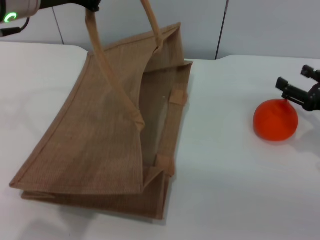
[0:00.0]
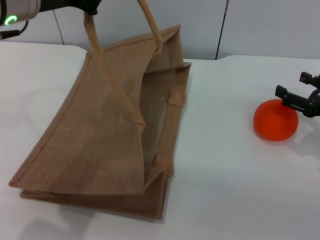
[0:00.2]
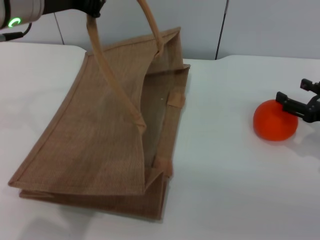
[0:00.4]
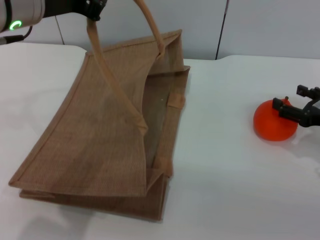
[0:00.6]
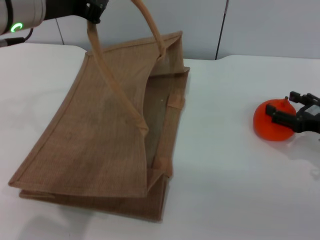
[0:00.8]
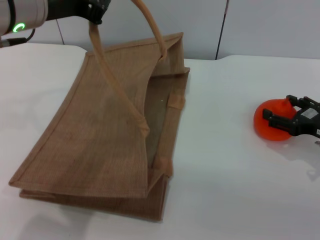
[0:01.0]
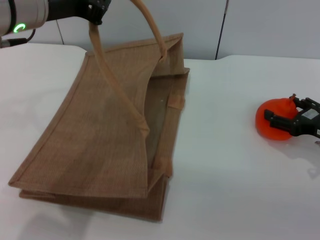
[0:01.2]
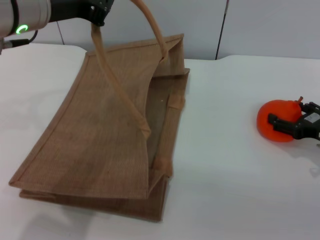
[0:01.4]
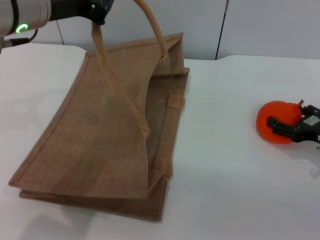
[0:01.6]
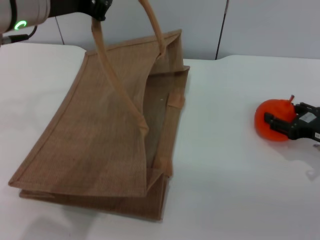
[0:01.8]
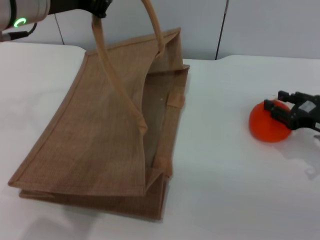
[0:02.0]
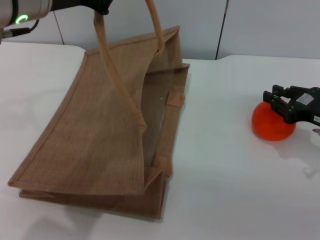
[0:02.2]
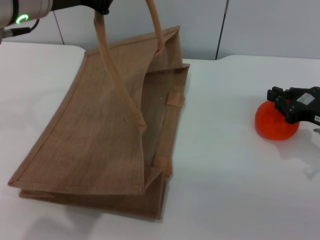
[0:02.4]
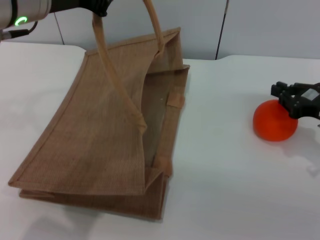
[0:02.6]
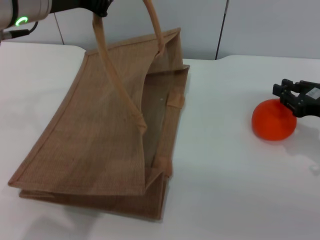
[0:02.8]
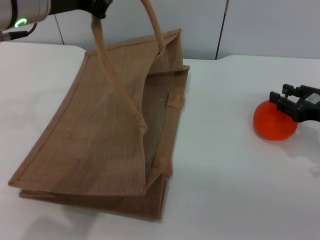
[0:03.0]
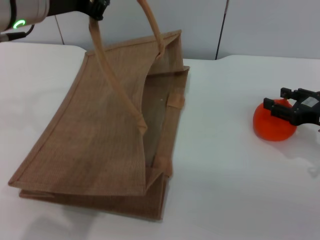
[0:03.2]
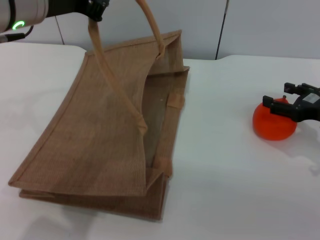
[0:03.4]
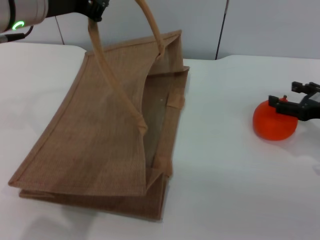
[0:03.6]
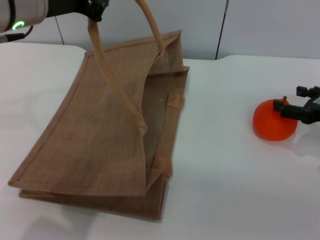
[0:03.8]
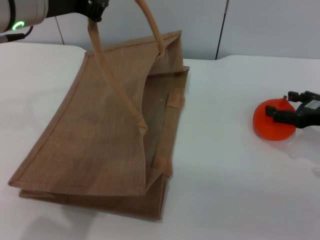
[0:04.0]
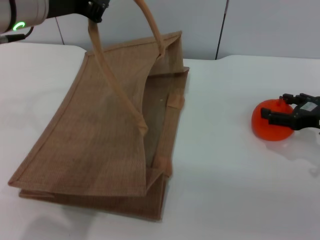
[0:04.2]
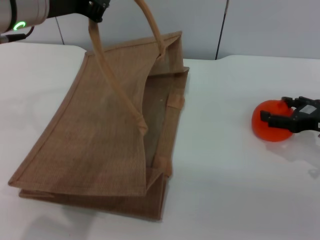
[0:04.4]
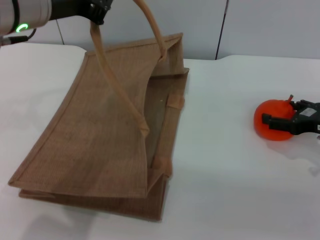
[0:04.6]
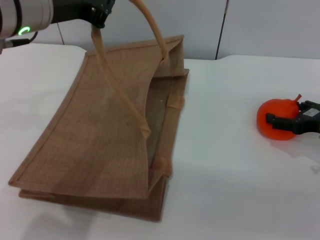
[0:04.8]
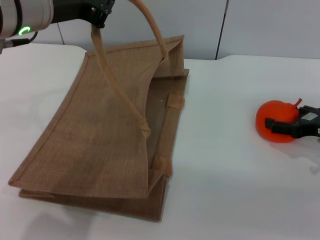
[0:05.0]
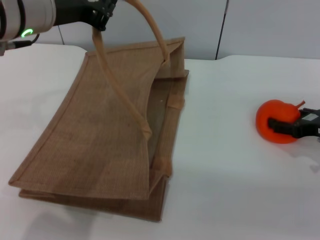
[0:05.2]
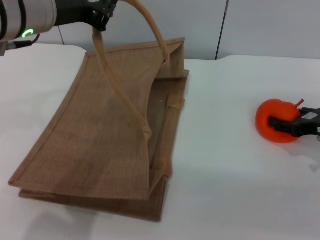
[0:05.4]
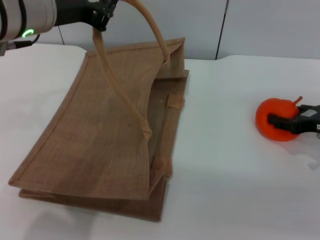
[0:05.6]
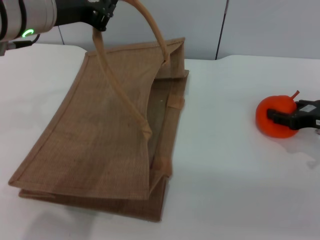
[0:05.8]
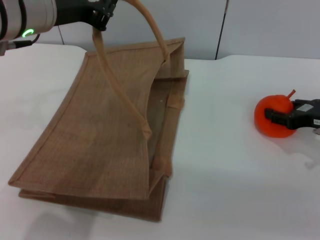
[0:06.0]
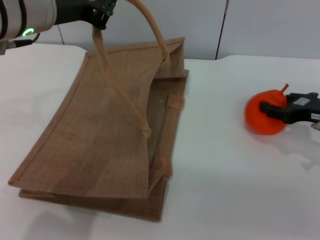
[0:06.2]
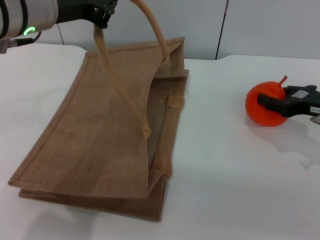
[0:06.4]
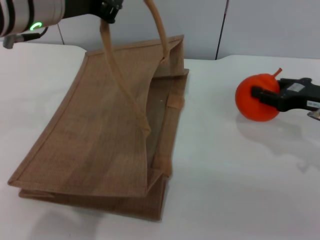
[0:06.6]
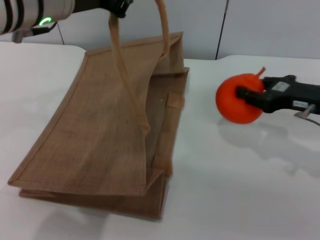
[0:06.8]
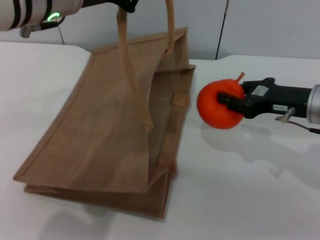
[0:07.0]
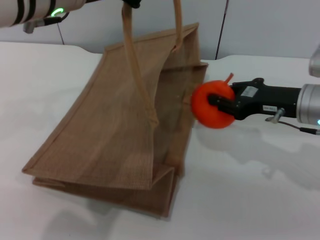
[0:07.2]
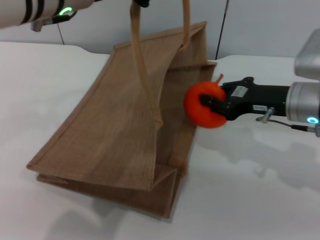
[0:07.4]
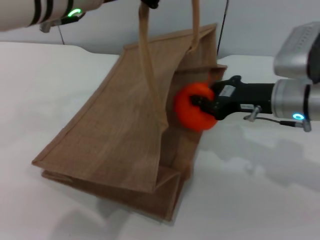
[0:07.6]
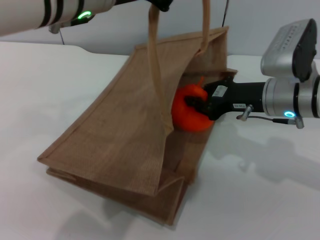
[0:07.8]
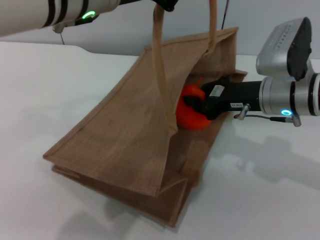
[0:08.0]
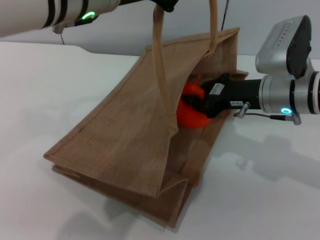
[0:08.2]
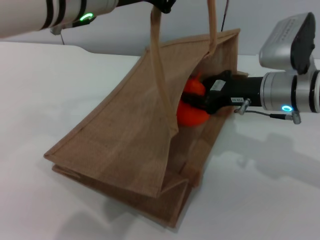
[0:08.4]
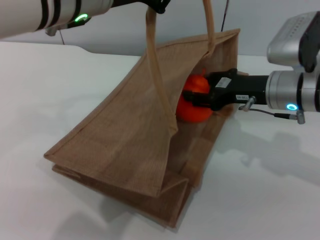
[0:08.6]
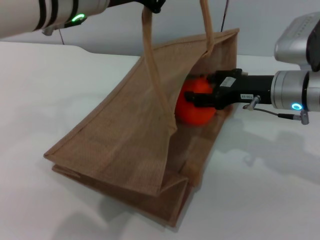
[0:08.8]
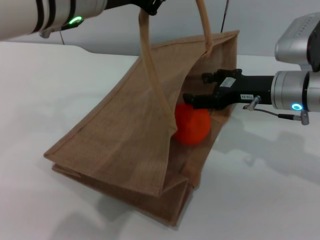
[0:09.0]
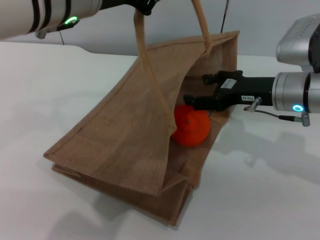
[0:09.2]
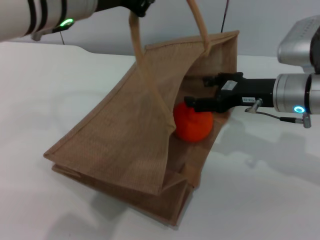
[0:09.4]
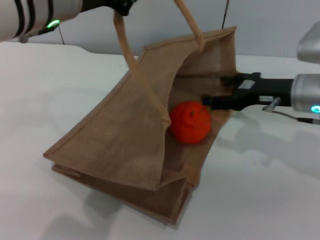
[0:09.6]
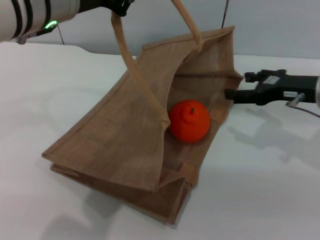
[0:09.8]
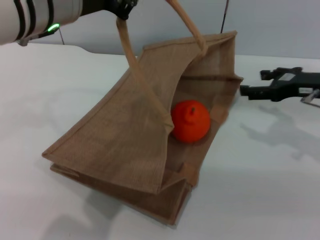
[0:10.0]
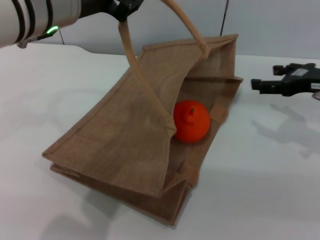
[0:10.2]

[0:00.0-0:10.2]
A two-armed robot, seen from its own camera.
Task of the whole recording: pick up the orange from the table and place it in the brown handbag.
Step, 0:00.0 to 0:06.6: Pick up the orange with the right gripper.
Step, 0:07.0 to 0:09.2: Place the orange into the woven bag with the right gripper.
0:00.0 to 0:01.4: The grippers stay close to where they were, moving slightly.
0:01.4 to 0:03.0: The right gripper closes up.
0:03.0 to 0:04.4: The right gripper opens.
0:04.4 to 0:05.8: The grippers stay close to where they were, moving slightly.
0:05.8 to 0:07.2: The right gripper goes roughly 10 cm to the left, and closes up.
0:08.8 to 0:10.2: The right gripper goes approximately 10 cm to the right, and opens its fingers.

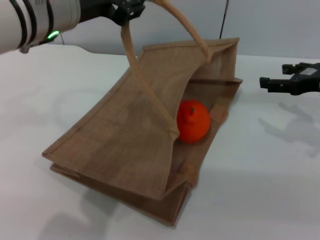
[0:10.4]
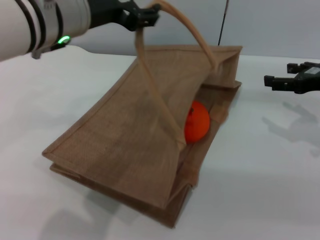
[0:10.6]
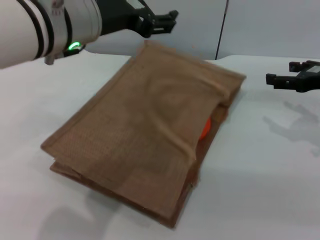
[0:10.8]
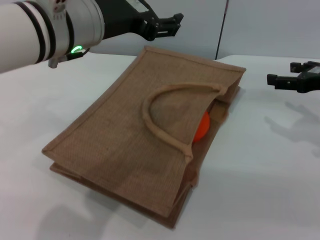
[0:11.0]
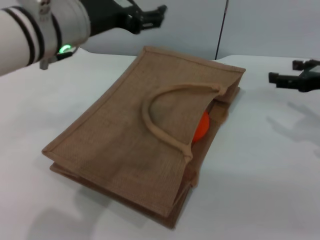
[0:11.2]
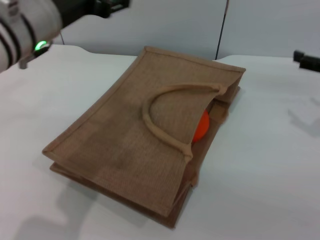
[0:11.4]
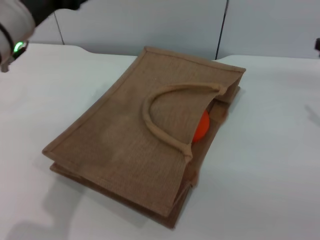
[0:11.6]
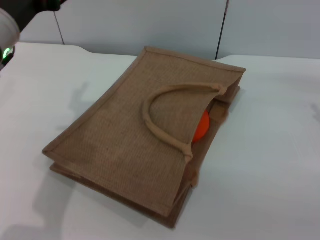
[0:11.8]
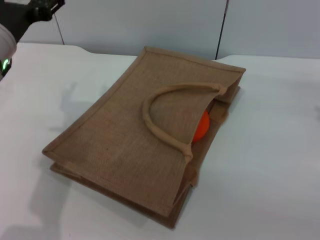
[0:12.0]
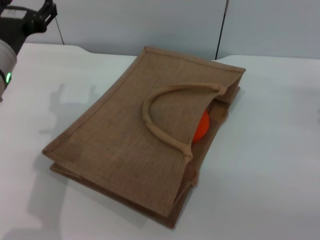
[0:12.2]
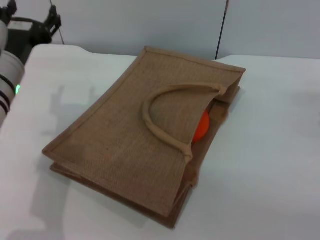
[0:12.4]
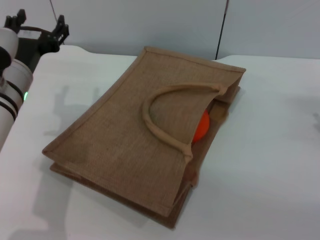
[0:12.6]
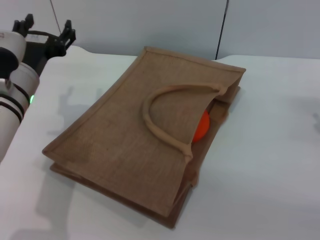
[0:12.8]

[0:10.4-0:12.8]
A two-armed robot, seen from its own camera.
Task of the whole recording: pick up the orange from the table and place it in the brown handbag.
0:10.4 to 0:11.6: The right gripper moves roughly 5 cm. The left gripper is displaced to the left by about 5 cm, and opens.
0:11.6 to 0:12.8: The left gripper shifts some 10 cm downward.
